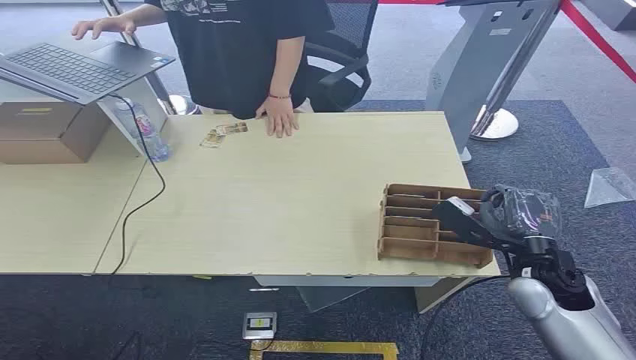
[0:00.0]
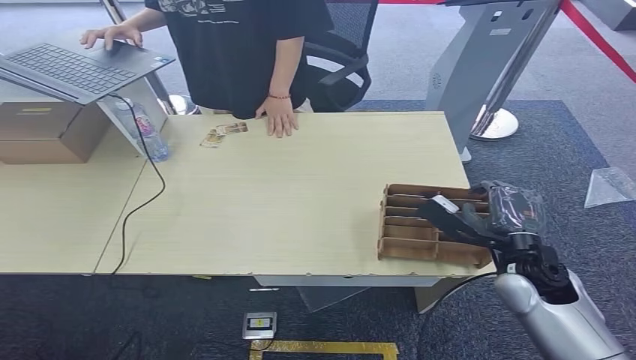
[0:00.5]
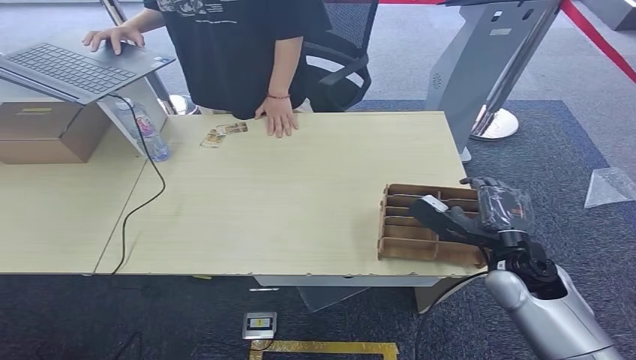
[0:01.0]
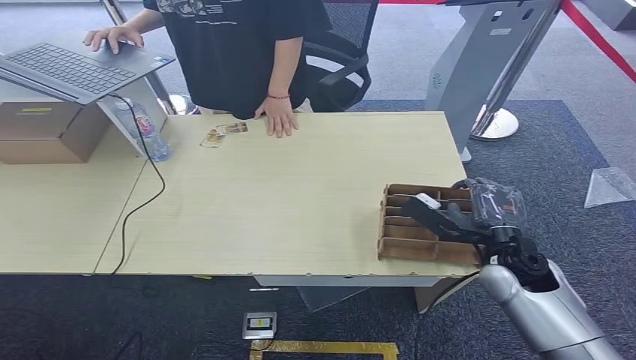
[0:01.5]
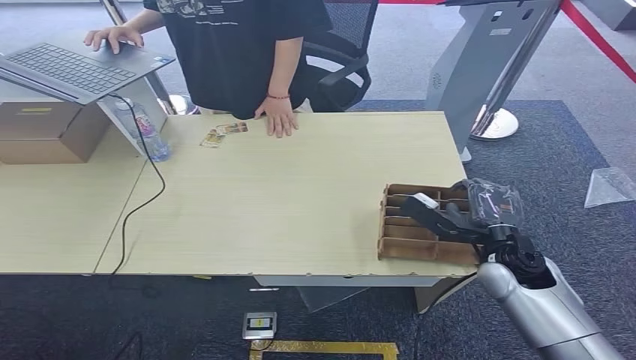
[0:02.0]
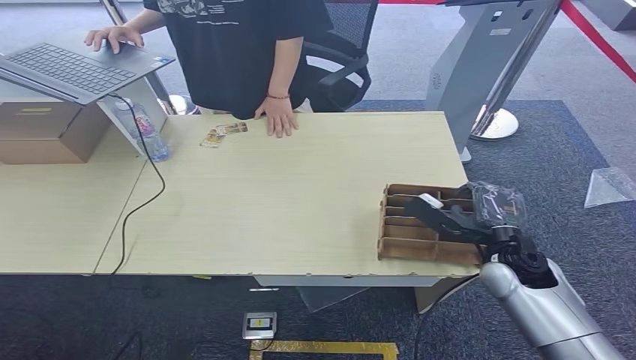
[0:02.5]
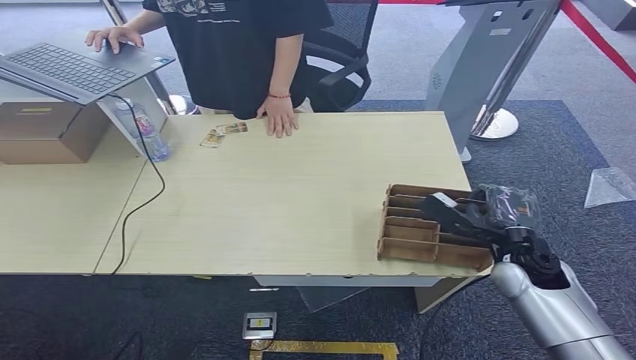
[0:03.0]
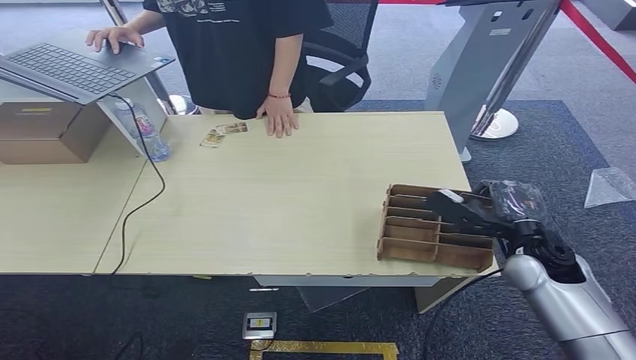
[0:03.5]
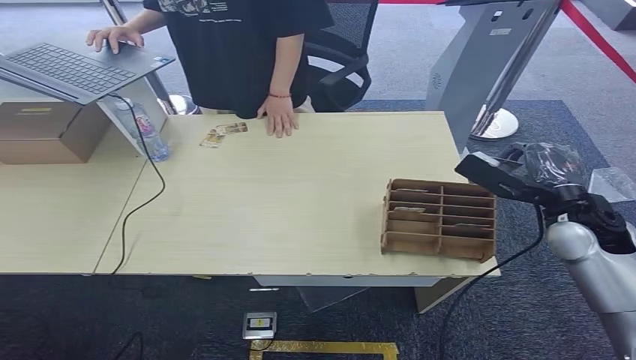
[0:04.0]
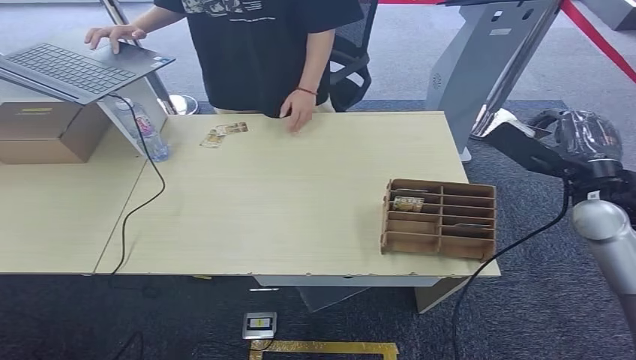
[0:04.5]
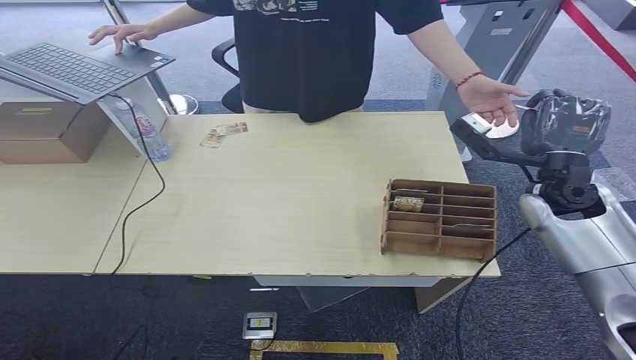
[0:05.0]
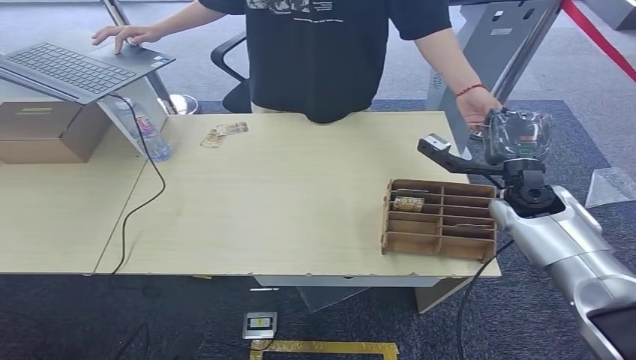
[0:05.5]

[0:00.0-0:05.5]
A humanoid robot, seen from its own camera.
Step, 0:00.0 to 0:04.5: Pick up the room card from the card holder.
Step, 0:05.0 to 0:05.5: Hand the room card to the target.
0:02.0 to 0:03.5: The hands move only a little.
